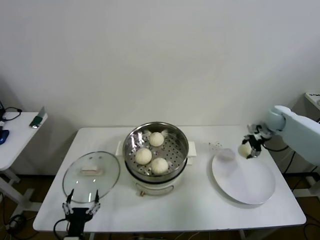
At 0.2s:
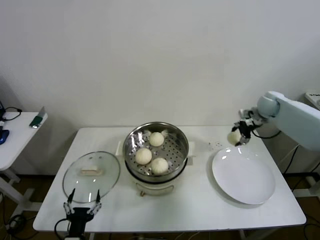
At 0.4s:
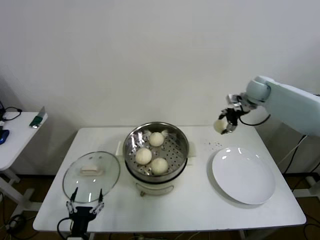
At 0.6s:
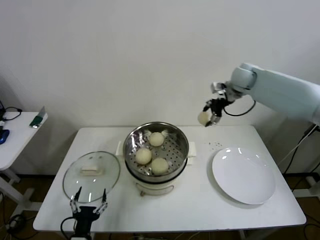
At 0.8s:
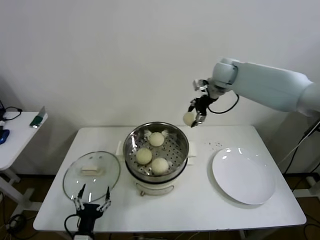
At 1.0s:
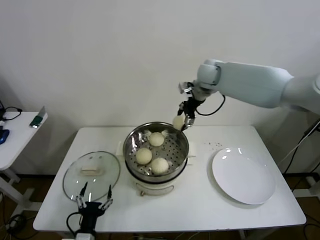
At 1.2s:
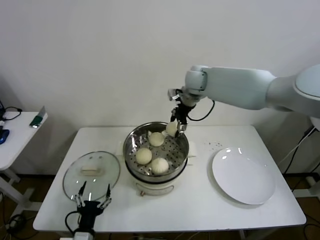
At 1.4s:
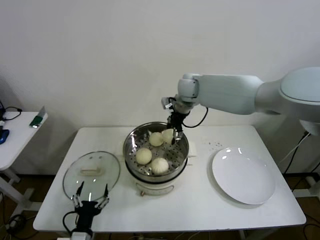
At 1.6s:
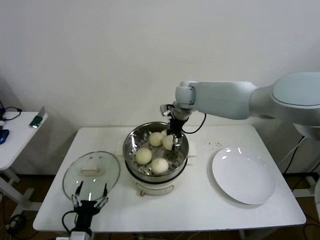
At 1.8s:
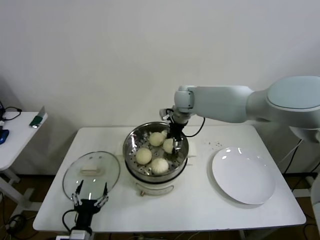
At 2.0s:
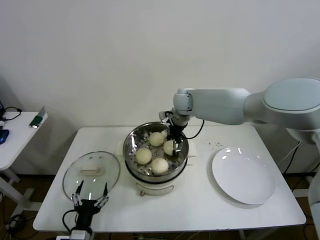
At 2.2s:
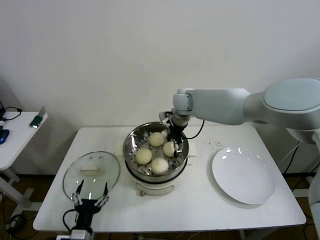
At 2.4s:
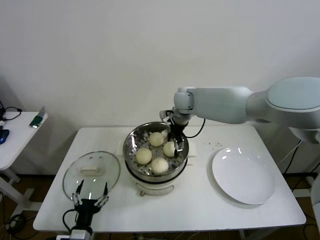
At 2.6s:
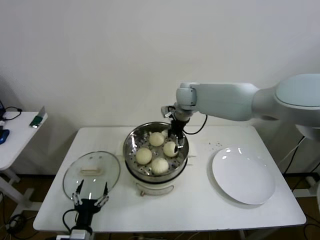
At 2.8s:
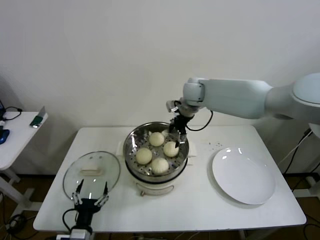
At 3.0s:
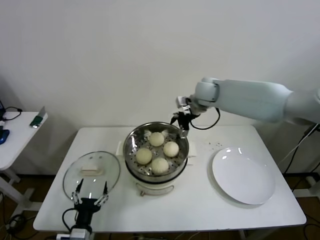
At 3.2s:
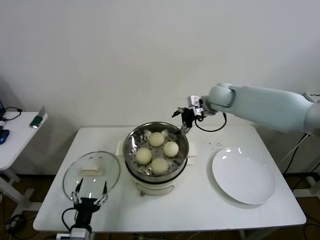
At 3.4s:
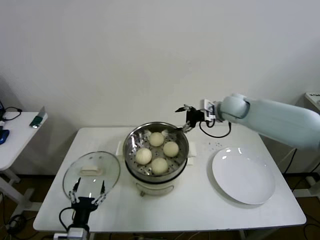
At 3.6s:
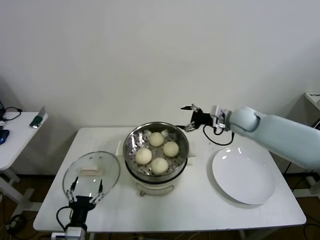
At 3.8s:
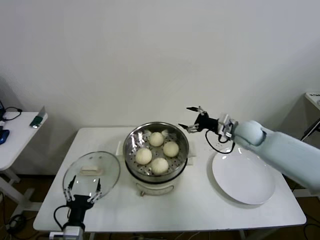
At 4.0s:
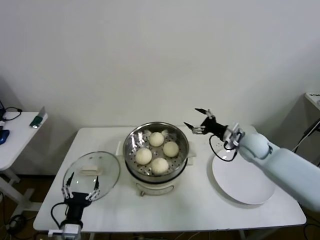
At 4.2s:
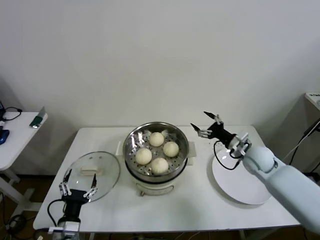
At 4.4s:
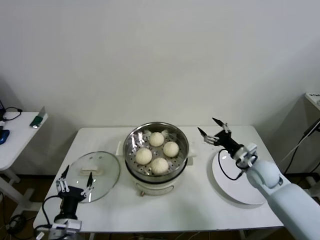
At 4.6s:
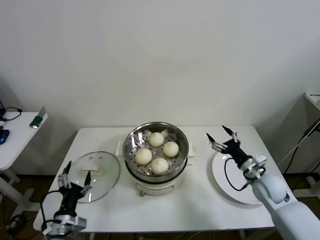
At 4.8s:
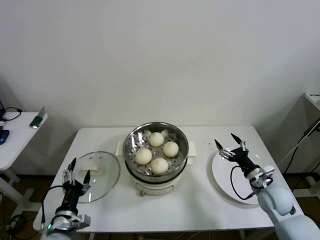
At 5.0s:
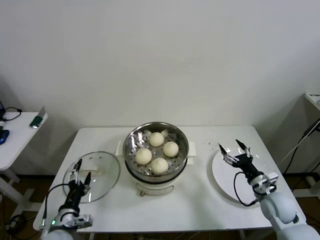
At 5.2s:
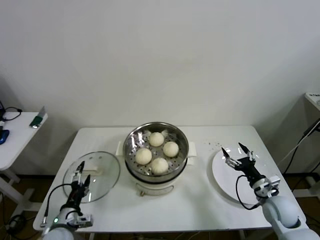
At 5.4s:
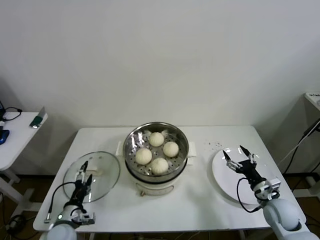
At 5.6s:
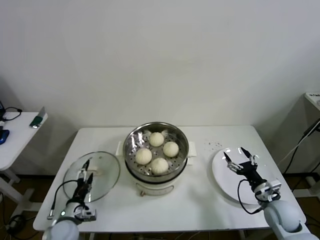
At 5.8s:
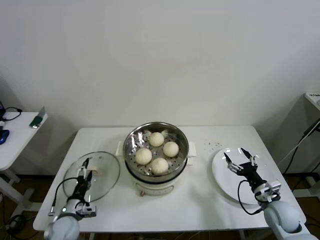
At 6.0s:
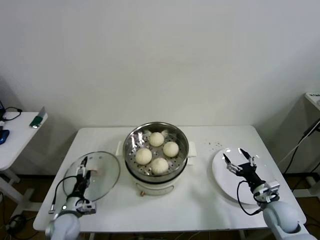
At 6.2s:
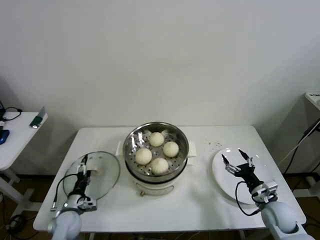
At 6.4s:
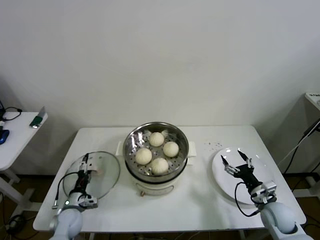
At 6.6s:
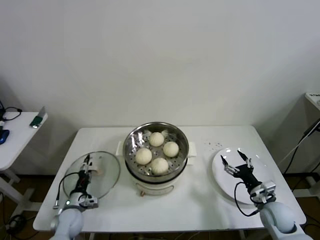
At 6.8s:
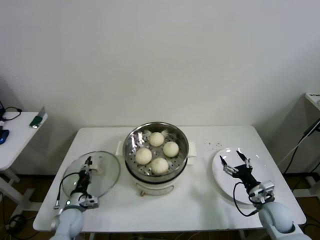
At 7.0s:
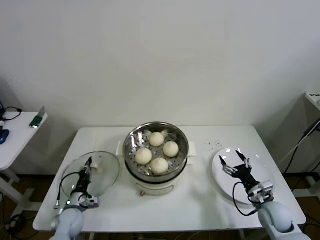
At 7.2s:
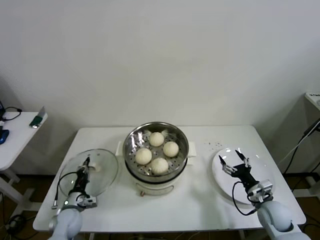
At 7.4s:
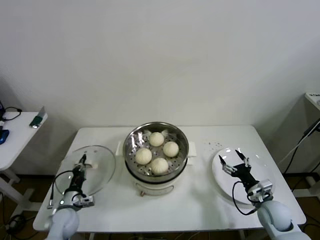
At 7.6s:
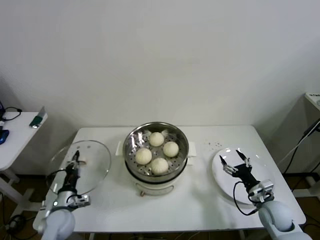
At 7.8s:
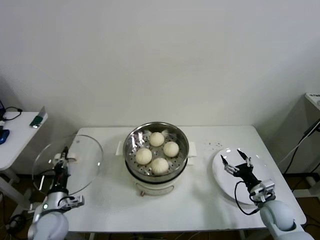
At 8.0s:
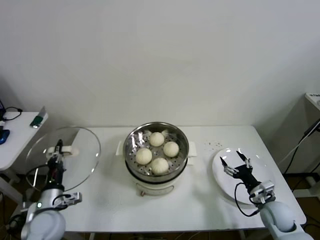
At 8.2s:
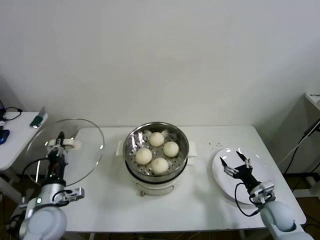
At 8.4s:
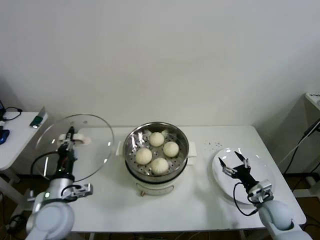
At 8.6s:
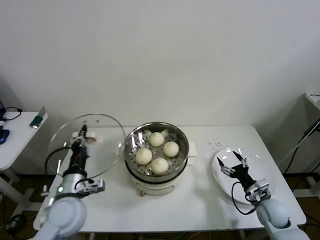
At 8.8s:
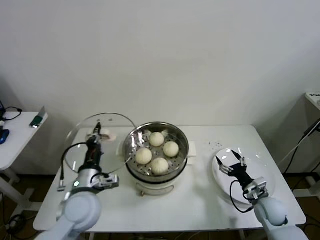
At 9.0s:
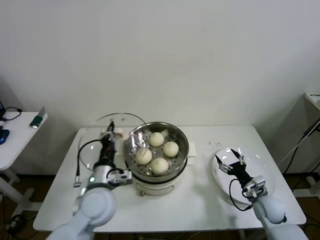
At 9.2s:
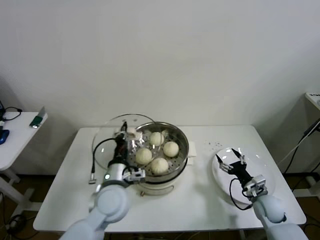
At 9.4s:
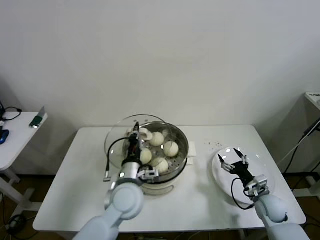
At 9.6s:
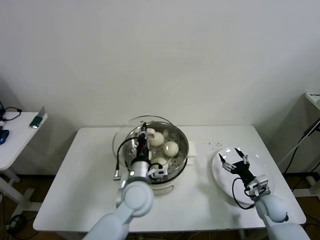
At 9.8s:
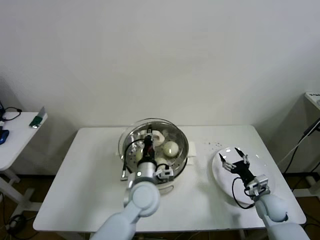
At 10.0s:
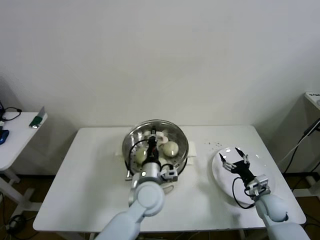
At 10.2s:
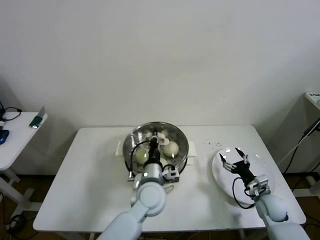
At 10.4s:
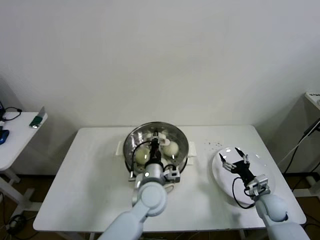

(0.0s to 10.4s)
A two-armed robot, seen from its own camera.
Step, 0.0s - 2.6s: Place the baozi on the steamer with right gripper.
Step, 2.8s - 7.0s: Grasp the pot lid with left gripper.
0.0s - 1.4s: The right gripper moves to the left, some 35 cm.
1.4s - 3.0s: The right gripper is displaced to the right by about 5 cm, and opens.
3.0s - 4.4s: The right gripper moves downward, backward and to the right, about 35 cm. The left gripper moves about 5 cm.
4.4s - 6.0s: The right gripper heads backward and downward, covering approximately 15 cm; the left gripper goes about 15 cm forward, downward and to the left.
6.0s - 7.4s: The left gripper closes.
7.4s - 9.0s: The left gripper travels upward and to the right by roughly 25 cm.
9.0s - 10.4s: The left gripper shifts about 15 cm to the right.

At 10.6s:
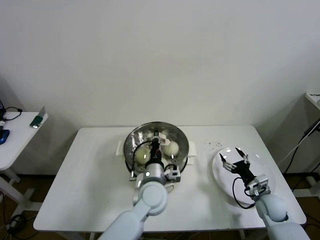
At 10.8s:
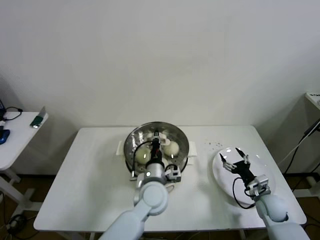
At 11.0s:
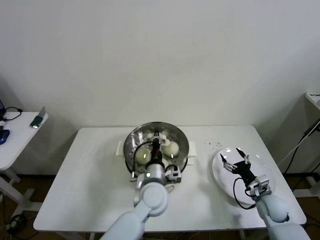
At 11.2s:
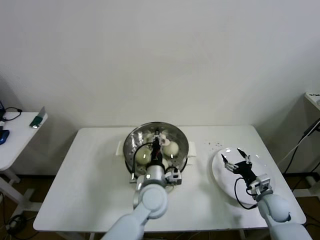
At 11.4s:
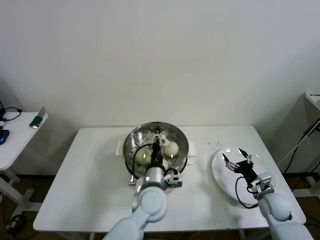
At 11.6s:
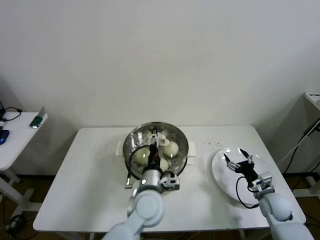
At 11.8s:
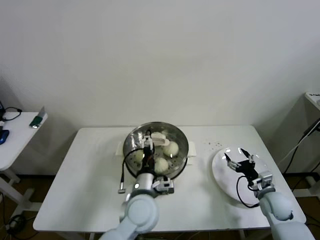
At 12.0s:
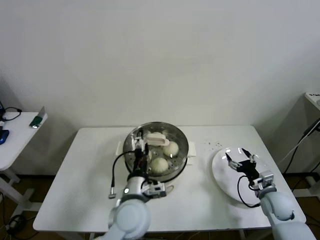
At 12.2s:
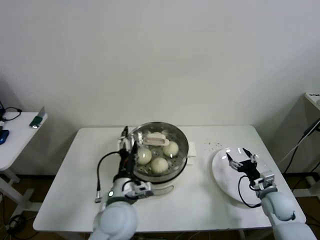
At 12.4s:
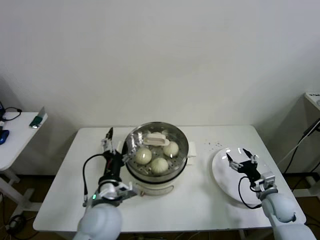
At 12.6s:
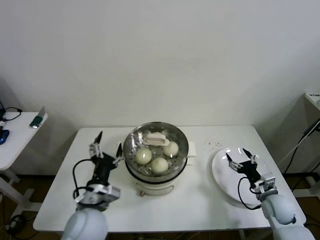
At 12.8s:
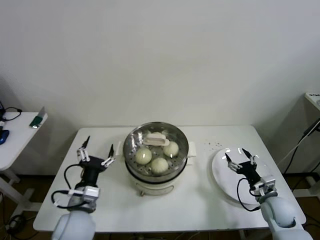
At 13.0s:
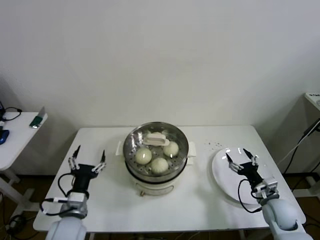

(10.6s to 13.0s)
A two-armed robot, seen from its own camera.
10.6s - 11.8s: The left gripper ends up some 5 cm from where it was, and opens its fingers.
11.8s - 13.0s: The left gripper heads to the left, covering roughly 20 cm.

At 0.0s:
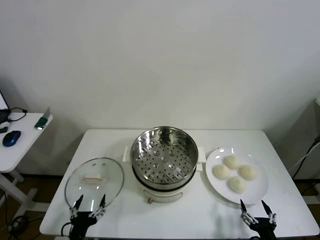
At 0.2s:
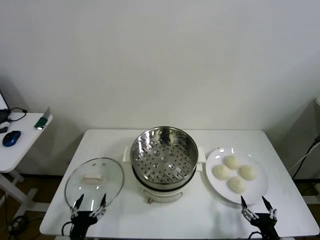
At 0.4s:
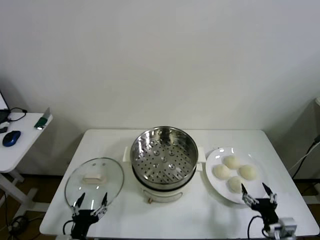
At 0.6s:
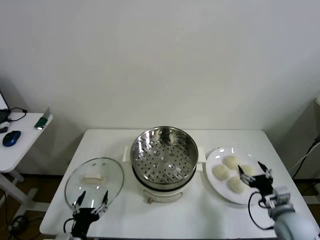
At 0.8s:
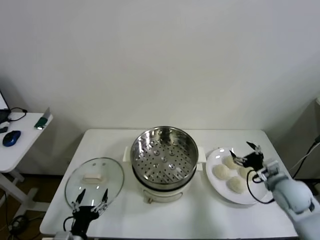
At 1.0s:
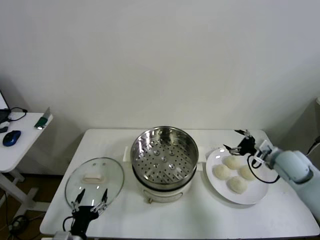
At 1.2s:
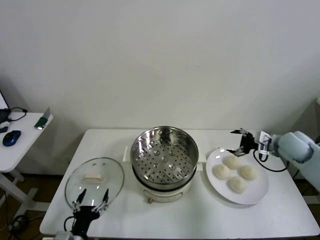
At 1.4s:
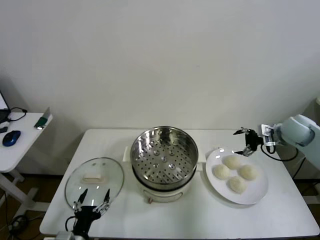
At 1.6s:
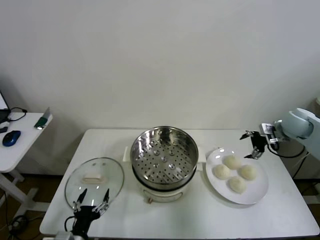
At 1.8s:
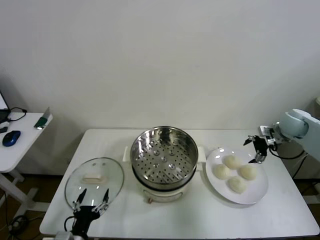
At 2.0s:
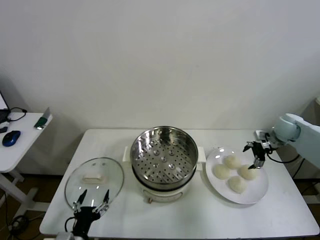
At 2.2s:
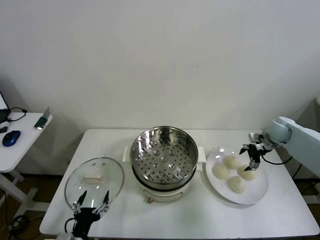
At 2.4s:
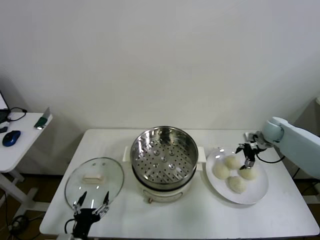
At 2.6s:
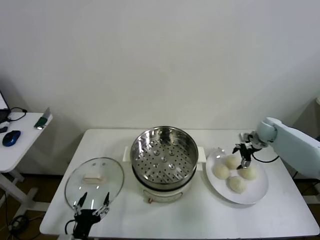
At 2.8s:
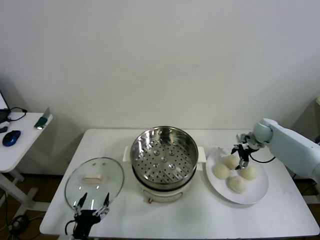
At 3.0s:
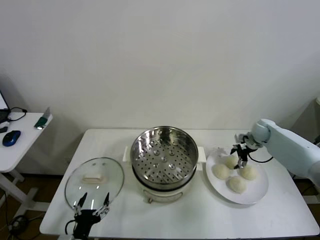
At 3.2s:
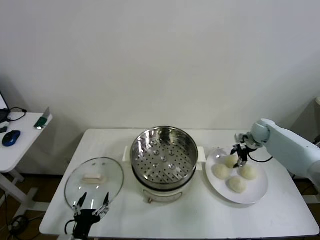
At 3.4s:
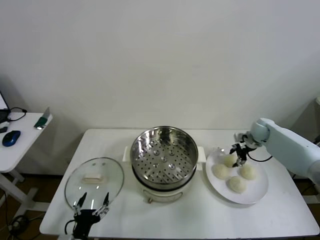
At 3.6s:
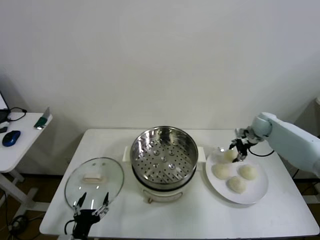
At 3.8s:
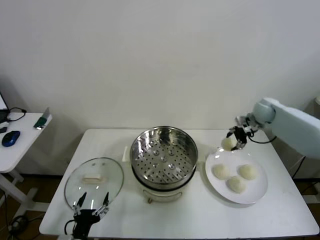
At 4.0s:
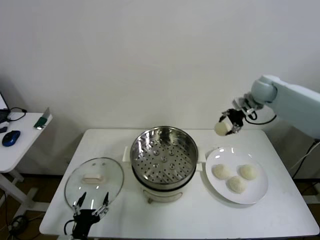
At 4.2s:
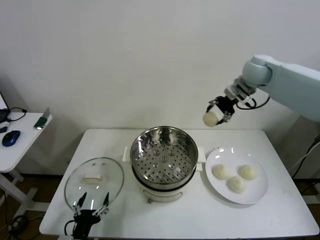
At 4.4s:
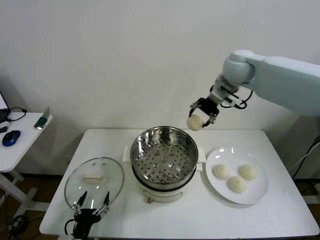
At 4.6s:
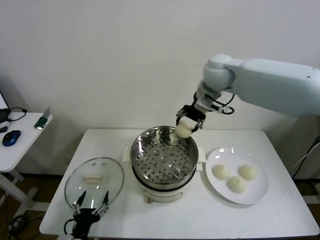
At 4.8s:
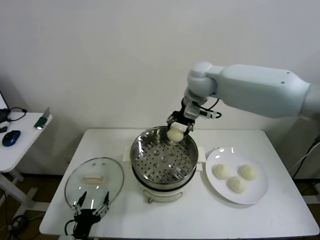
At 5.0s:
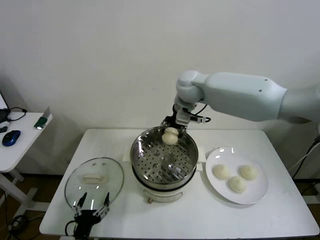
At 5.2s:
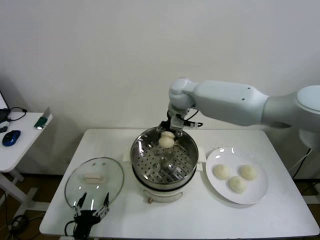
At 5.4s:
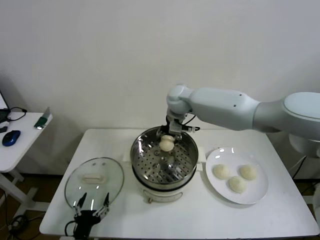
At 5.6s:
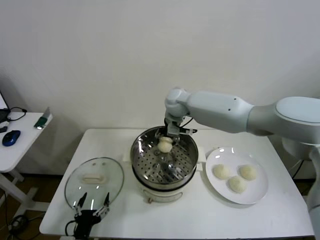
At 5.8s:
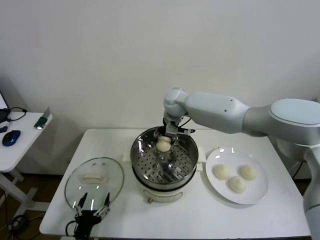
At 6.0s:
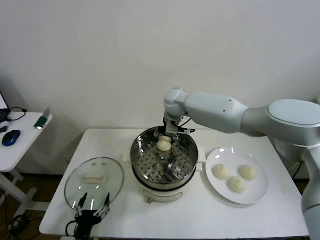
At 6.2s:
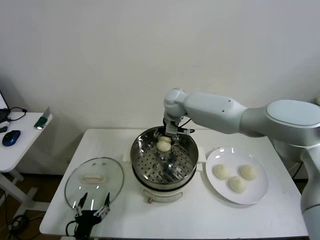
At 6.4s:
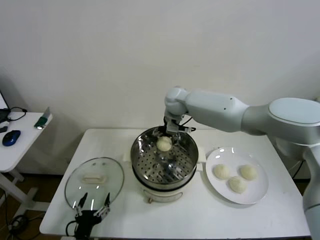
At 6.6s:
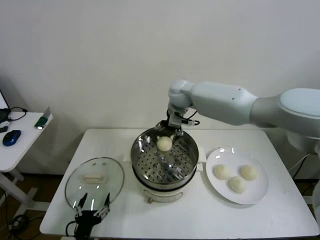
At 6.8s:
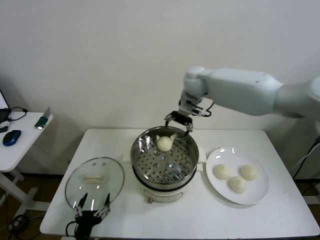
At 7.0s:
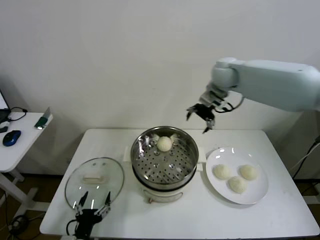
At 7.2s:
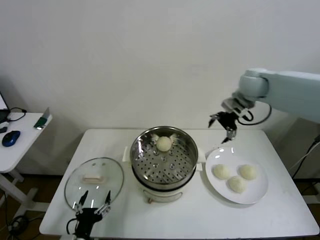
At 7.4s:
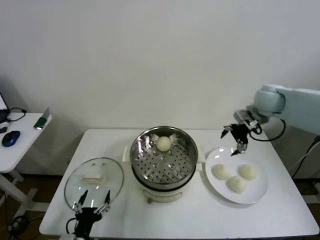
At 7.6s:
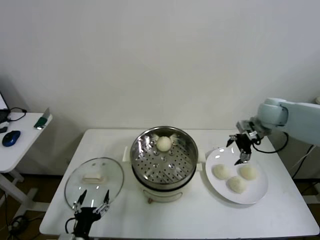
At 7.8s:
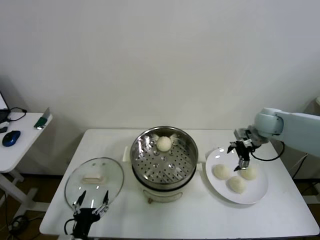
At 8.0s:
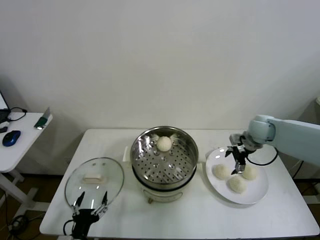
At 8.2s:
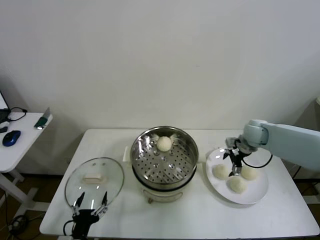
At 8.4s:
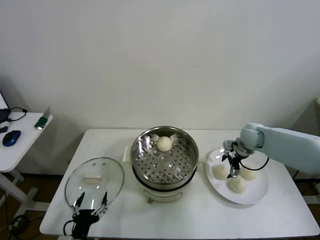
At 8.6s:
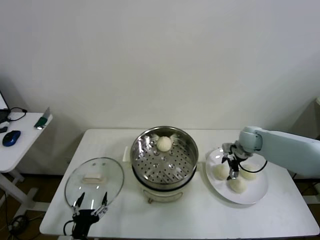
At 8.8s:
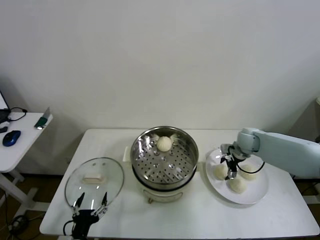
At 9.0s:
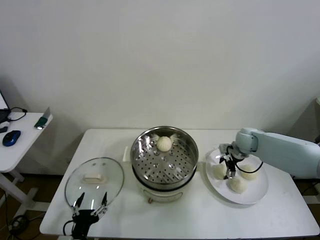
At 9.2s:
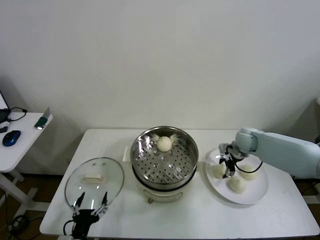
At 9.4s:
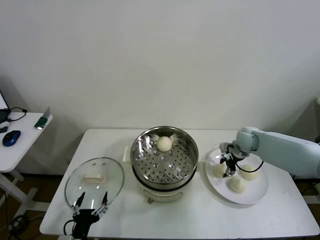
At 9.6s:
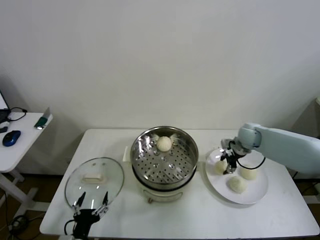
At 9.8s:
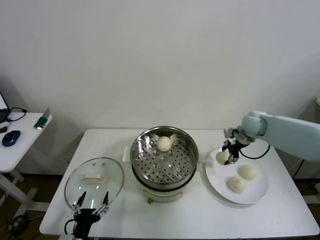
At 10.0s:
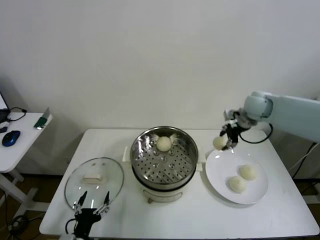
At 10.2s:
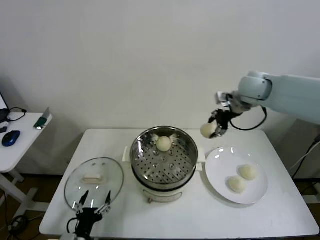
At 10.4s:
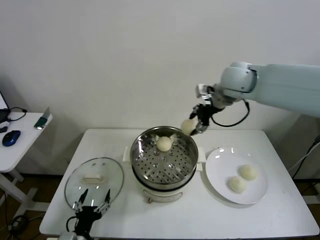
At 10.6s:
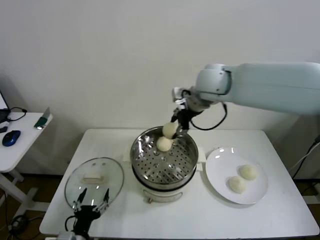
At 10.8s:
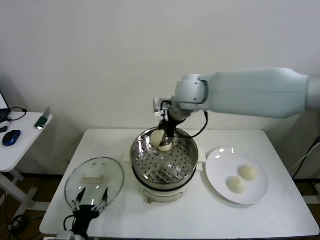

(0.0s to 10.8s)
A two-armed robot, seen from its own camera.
Step, 0.0s - 3.0s: Grasp the baozi in the plate with right gripper.
Step, 3.2s - 6.4s: Place the baozi on the steamer with right gripper.
Step, 6.6s - 9.2s: Grasp the baozi in the plate with right gripper.
1.6s - 3.0s: The right gripper is displaced downward and forward by approximately 15 cm, and closes its fingers.
3.0s - 4.6s: The right gripper moves to the left and upward, approximately 40 cm.
4.6s - 6.2s: The right gripper is displaced downward and to the left by approximately 15 cm, and opens up.
6.2s - 7.8s: The right gripper shifts about 30 cm to the right.
7.8s - 9.2s: The right gripper heads downward, covering roughly 10 cm, and closes up.
9.2s - 10.8s: The right gripper travels to the left and upward by approximately 35 cm.
